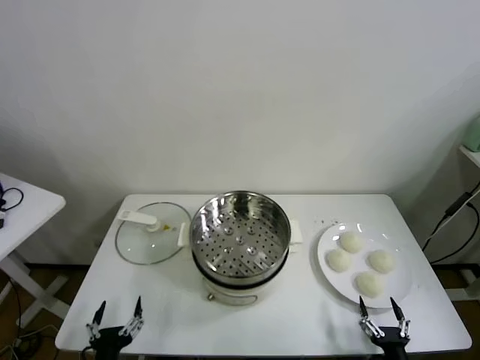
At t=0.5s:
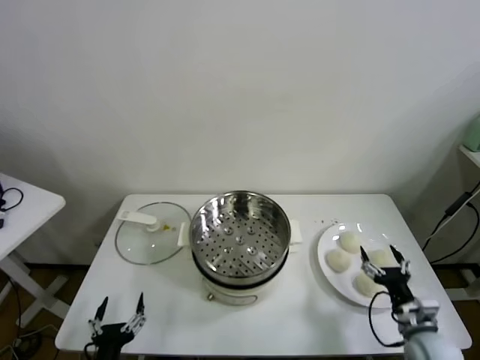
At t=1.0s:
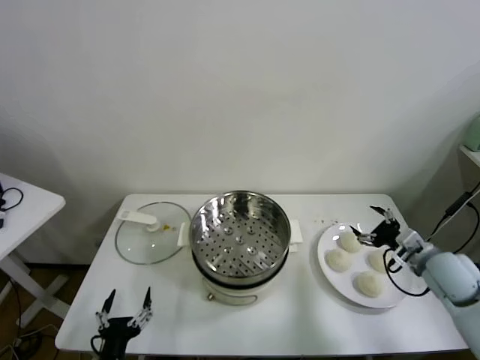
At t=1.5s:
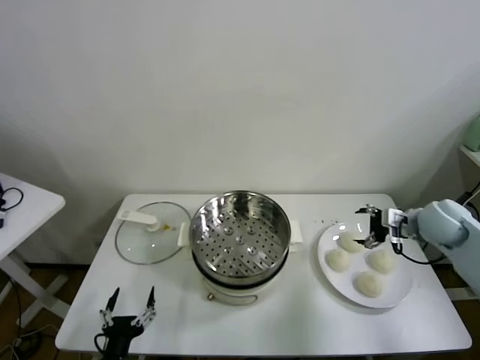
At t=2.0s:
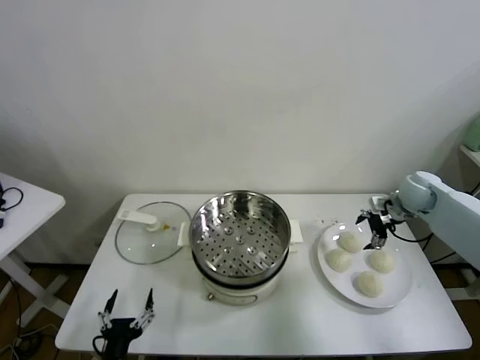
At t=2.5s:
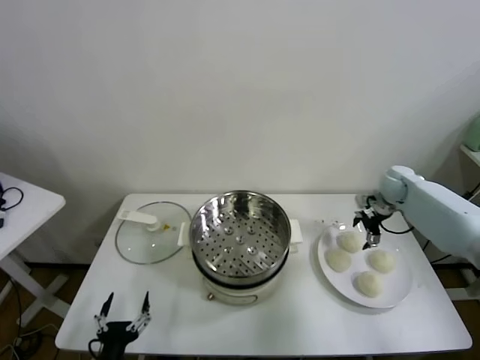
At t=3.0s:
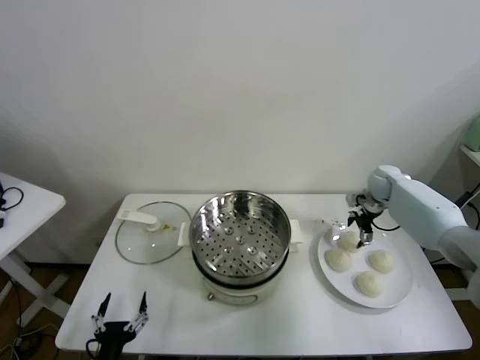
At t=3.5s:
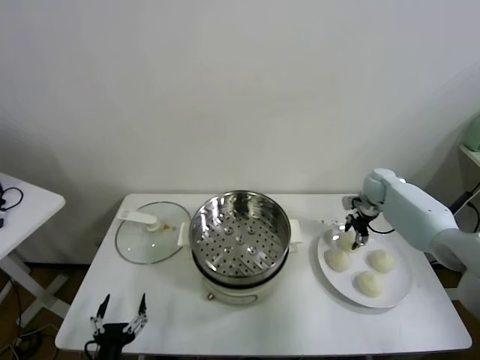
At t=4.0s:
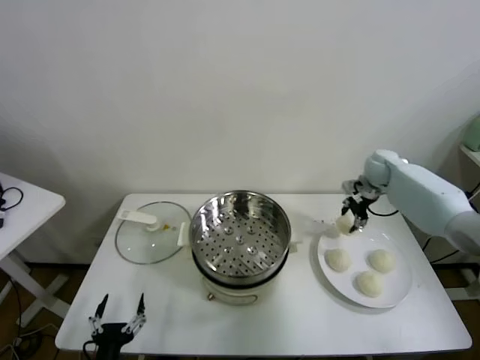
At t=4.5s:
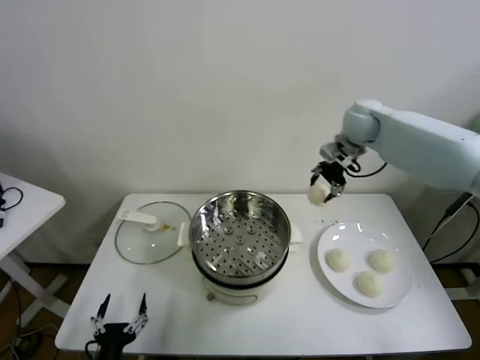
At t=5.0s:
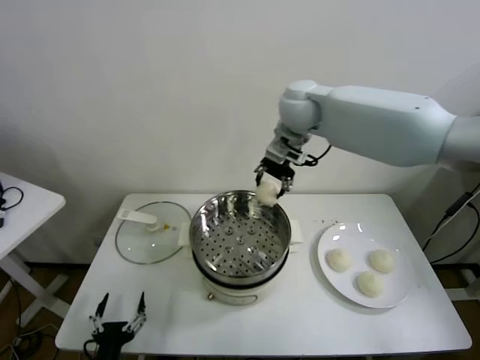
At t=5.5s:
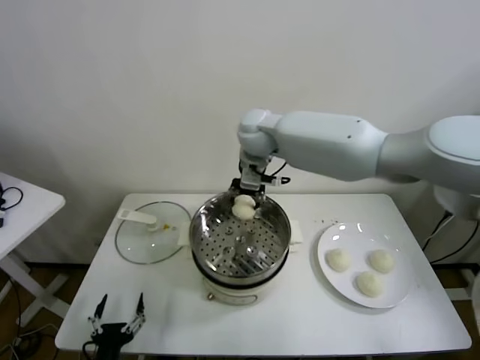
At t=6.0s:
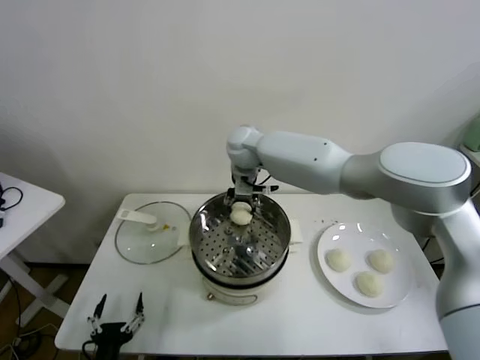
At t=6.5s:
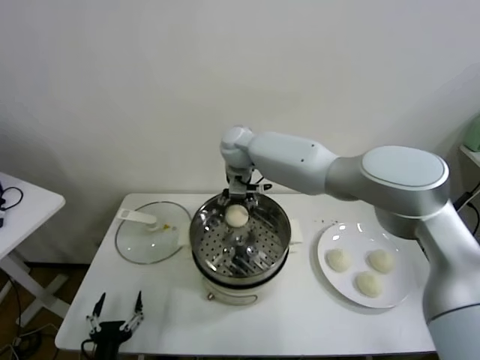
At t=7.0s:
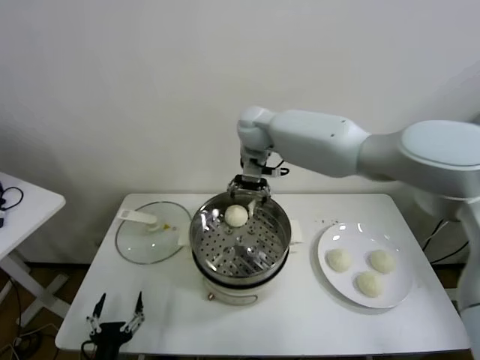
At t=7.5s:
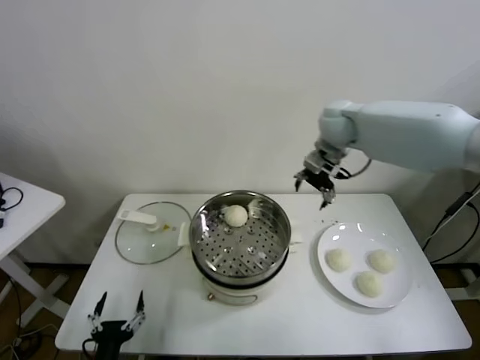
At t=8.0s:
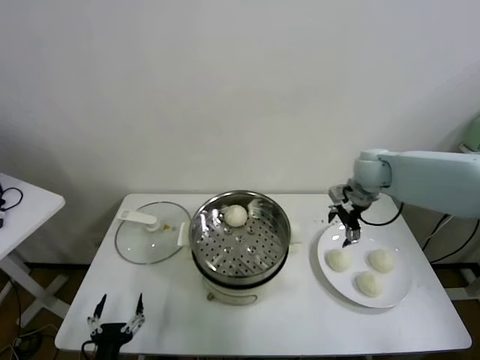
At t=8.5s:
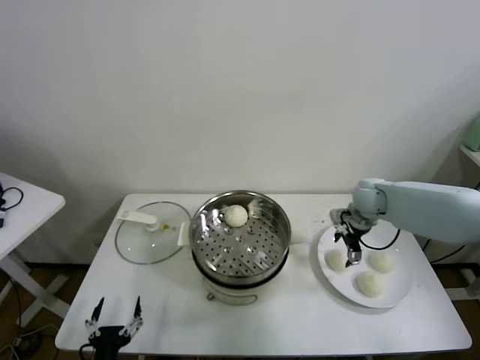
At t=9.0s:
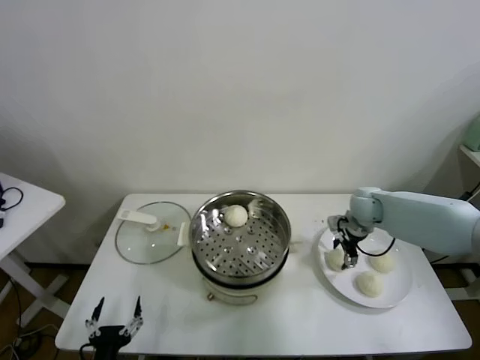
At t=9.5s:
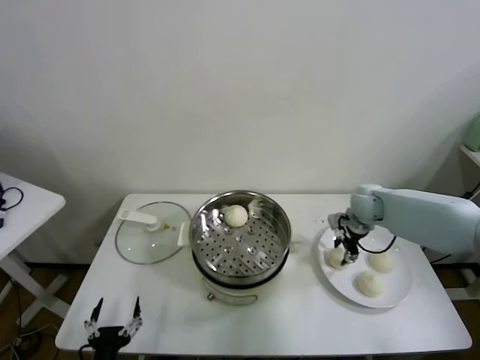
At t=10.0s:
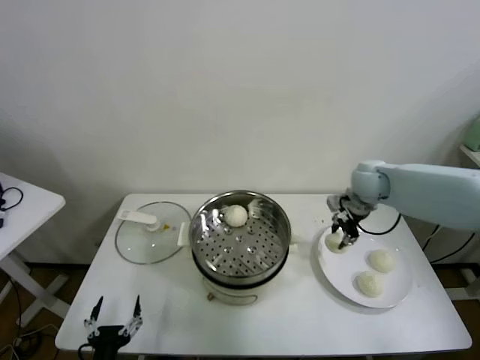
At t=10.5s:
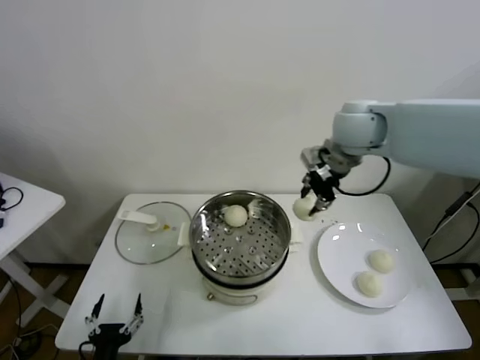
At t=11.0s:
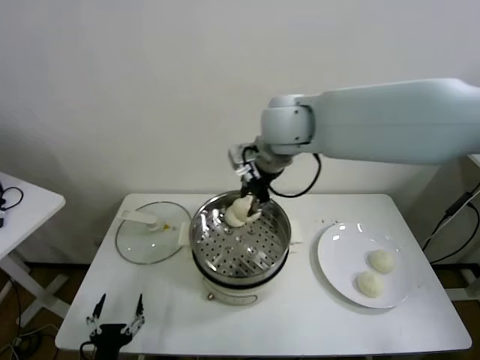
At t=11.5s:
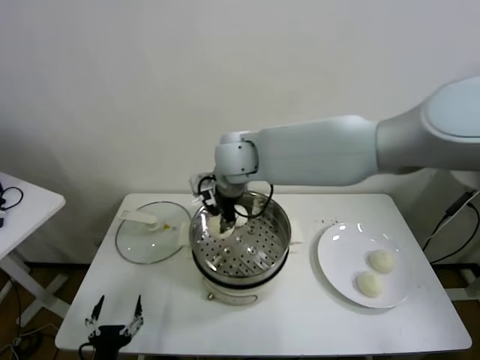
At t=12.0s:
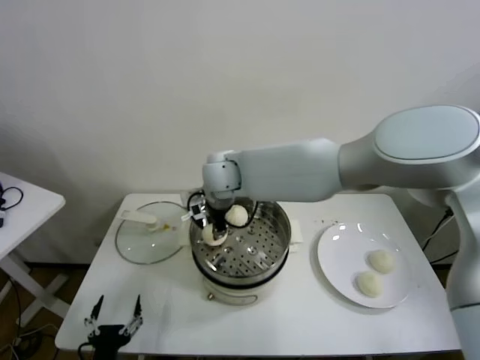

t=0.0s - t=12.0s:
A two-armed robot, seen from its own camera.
Task of the whole recording: take steamed baozi put them in steamer.
Step, t=0.0s - t=3.5s: Grasp the baozi in the plate with right gripper.
Step, t=4.0s - t=6.5s: Place the baozi on the steamer with right gripper.
Step, t=7.0s - t=9.0s: Grasp the baozi in the plate with right gripper.
t=2.0s - t=4.0s: The right gripper is displaced forward and to the left by some 10 cm, and closes.
t=4.0s - t=6.0s: The right gripper heads to the left, covering approximately 35 cm.
t=6.0s - t=8.0s: The right gripper shifts about 30 cm to the right, and opens its fingers.
t=8.0s - t=10.0s: The right gripper reaches about 10 cm downward, then returns, and closes.
t=10.0s - t=12.0s: The right gripper is displaced to the left by approximately 35 cm.

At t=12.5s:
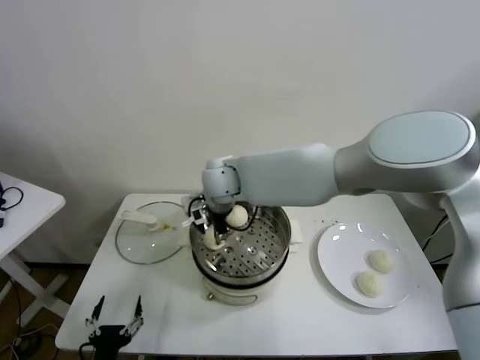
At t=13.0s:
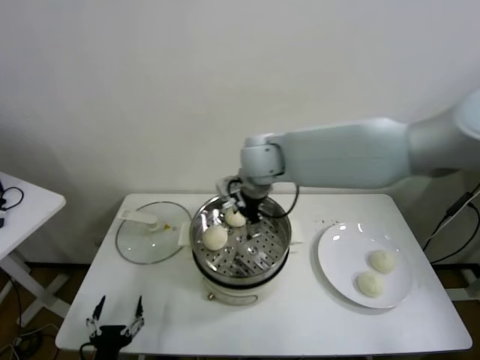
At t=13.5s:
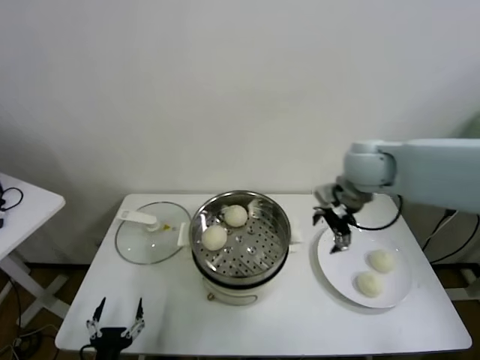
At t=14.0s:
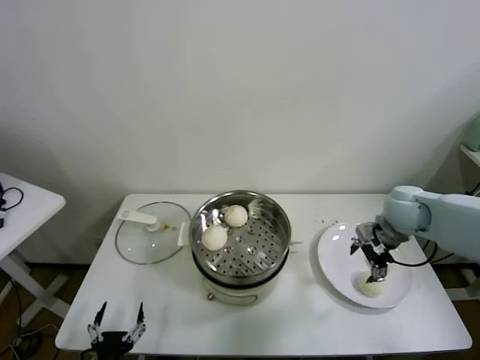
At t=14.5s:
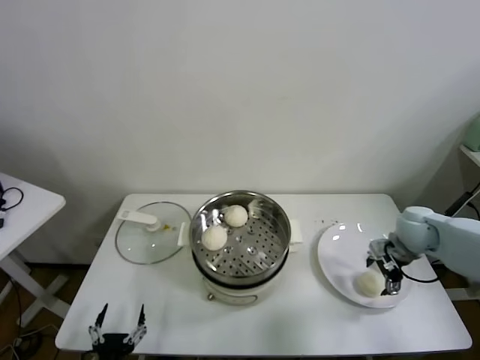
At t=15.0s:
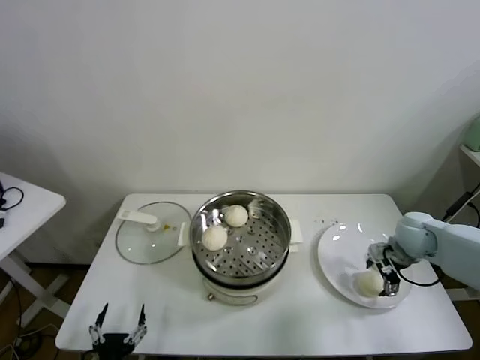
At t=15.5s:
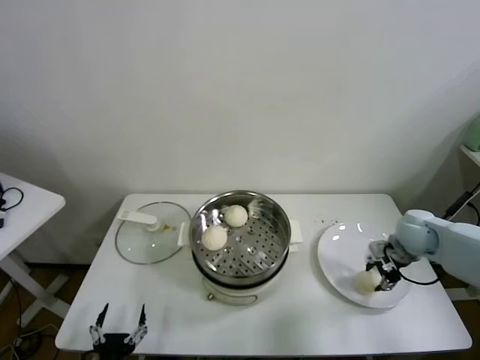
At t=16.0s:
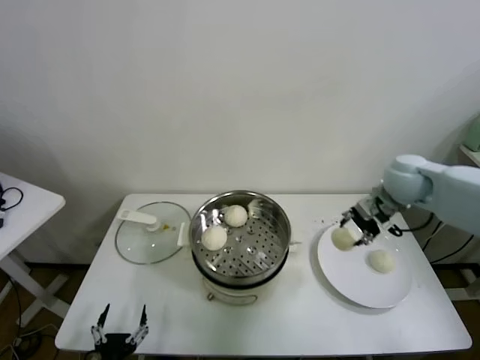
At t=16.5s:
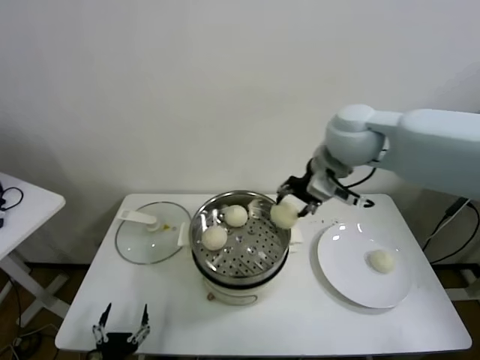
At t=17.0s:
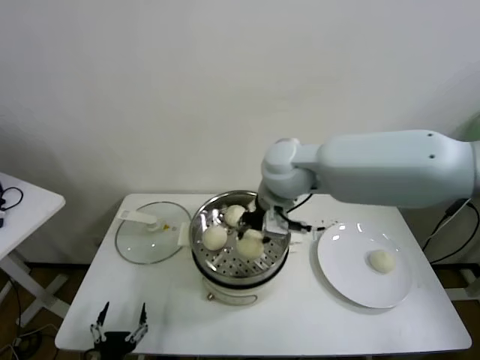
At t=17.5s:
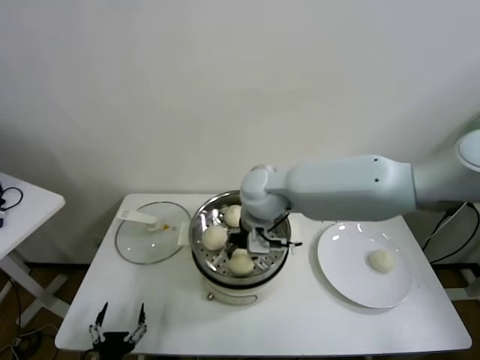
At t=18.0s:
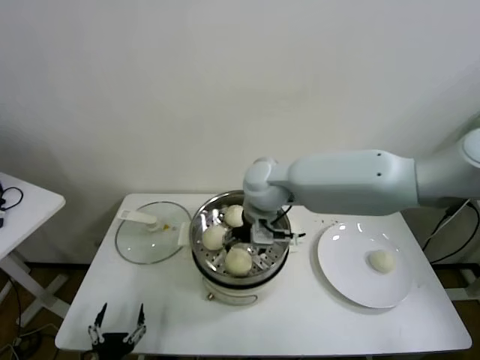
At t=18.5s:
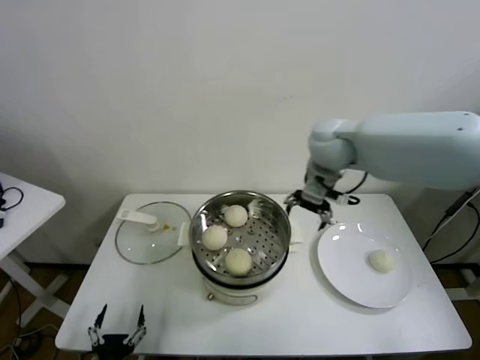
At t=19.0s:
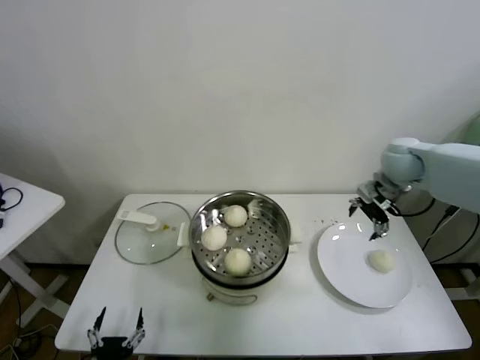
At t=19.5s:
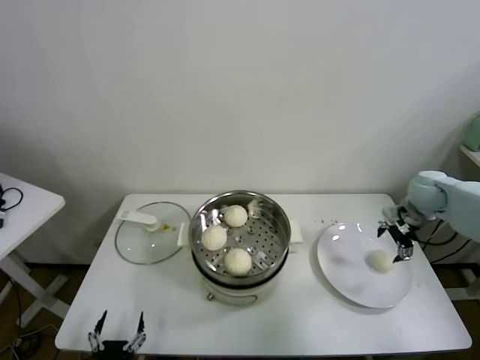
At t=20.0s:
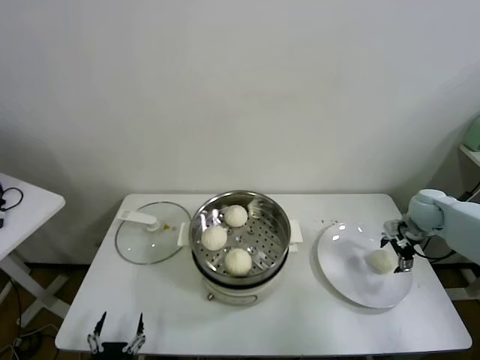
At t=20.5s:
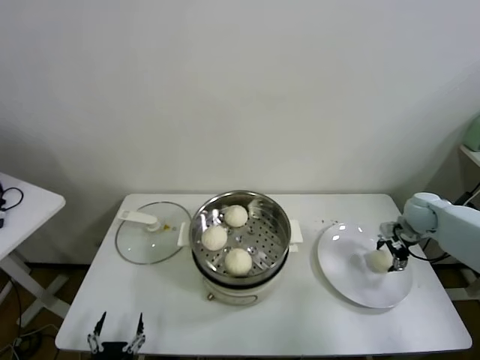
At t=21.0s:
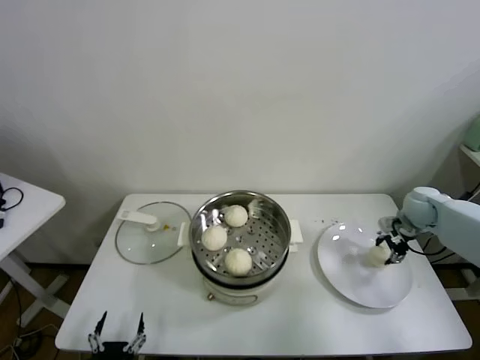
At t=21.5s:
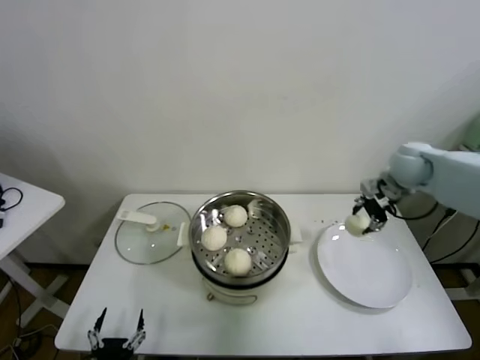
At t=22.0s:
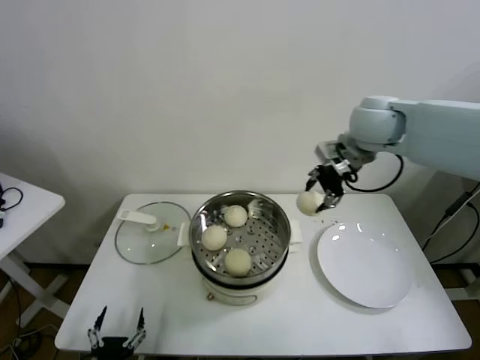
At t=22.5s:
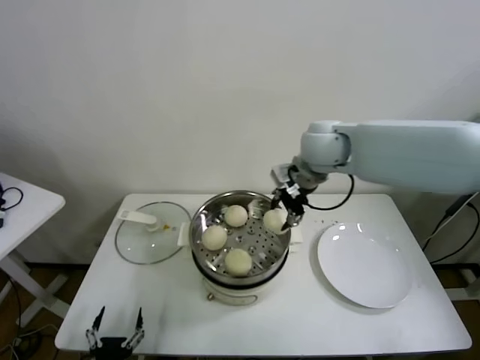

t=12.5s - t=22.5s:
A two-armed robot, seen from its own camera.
Task of the whole recording: take steamed baozi put them in steamer.
Step, t=13.0s - t=15.0s: Grasp the baozi in the plate with right gripper.
Step, t=15.5s - t=17.5s: Place the baozi on the steamer with right gripper.
Step, t=18.0s - t=20.5s: Grasp the baozi in the plate with right gripper.
t=12.5s - t=14.5s: The right gripper heads to the right, covering roughly 40 cm, and opens up.
t=14.5s - t=16.5s: The right gripper moves upward and to the left, approximately 35 cm, and closes.
t=16.5s - t=18.5s: The right gripper travels to the left and back again, roughly 15 cm each way, and opens up.
t=18.5s - t=20.5s: The right gripper heads to the right and downward, covering roughly 35 cm.
t=20.5s - t=22.5s: The right gripper moves to the left and upward, about 40 cm, and closes.

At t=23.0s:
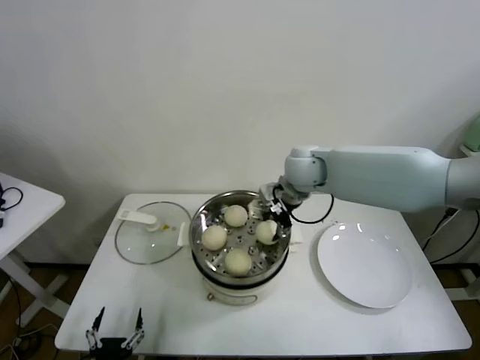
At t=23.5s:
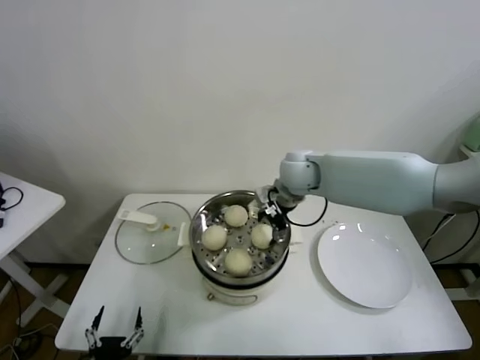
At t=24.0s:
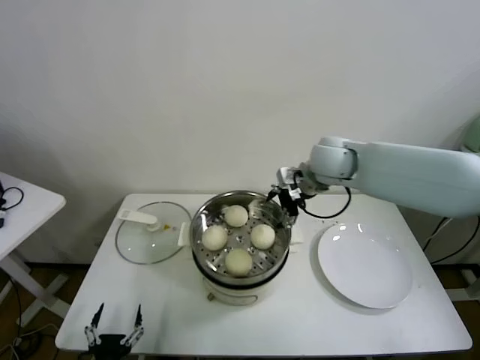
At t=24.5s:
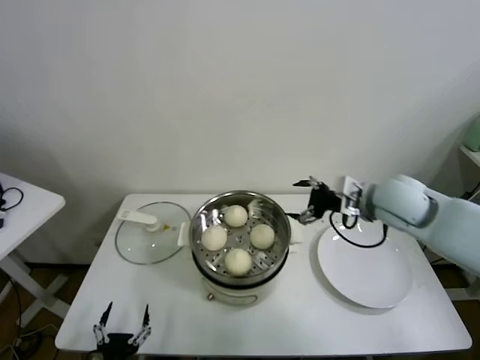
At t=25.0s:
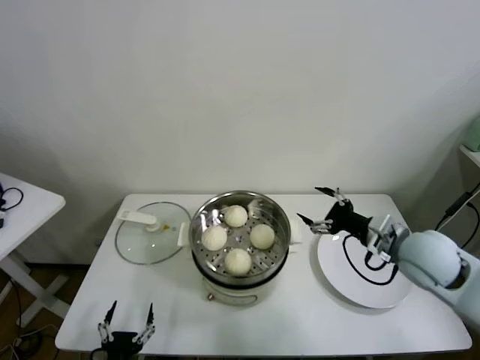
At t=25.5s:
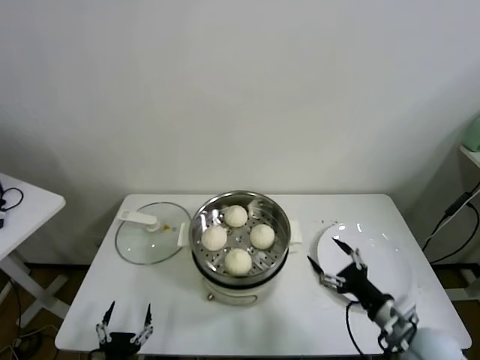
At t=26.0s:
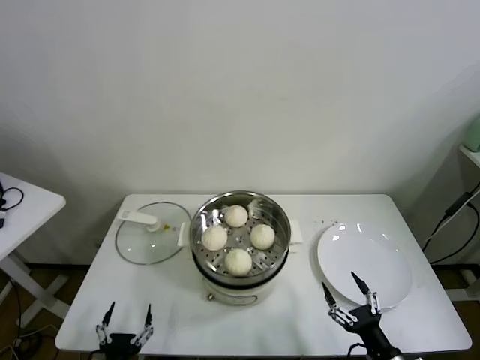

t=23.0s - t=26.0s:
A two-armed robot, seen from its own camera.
Task of the whole recording: take steamed baozi put them in steamer.
t=23.0s - t=24.5s: The right gripper heads to the right and backward, covering roughly 15 cm, and opens its fingers.
t=24.5s - t=26.0s: The right gripper heads backward and downward, covering roughly 40 cm.
